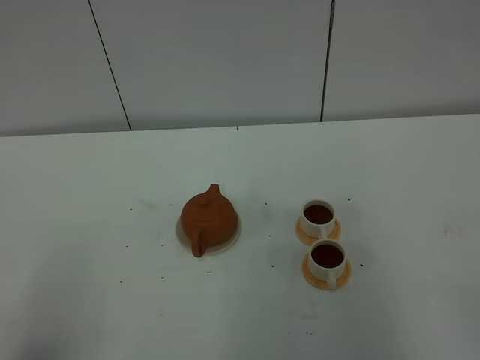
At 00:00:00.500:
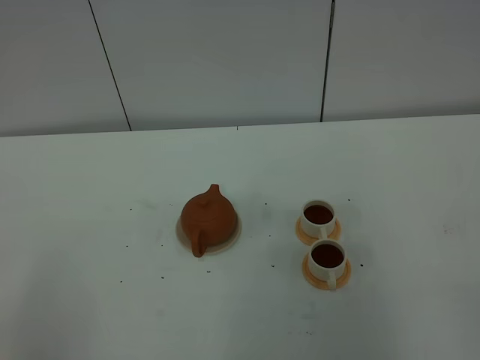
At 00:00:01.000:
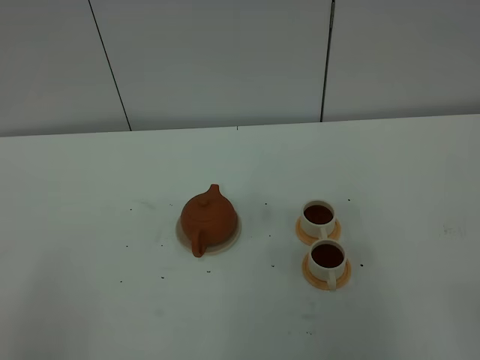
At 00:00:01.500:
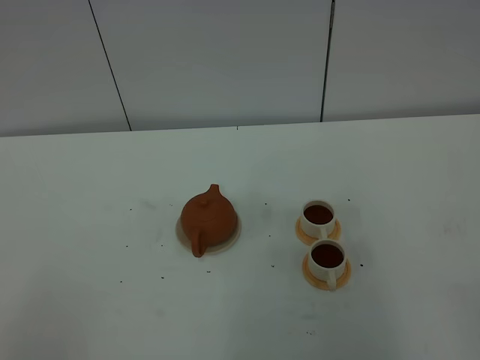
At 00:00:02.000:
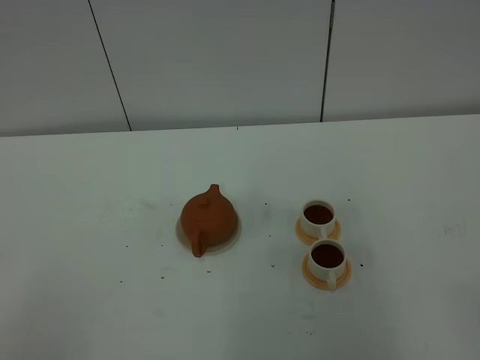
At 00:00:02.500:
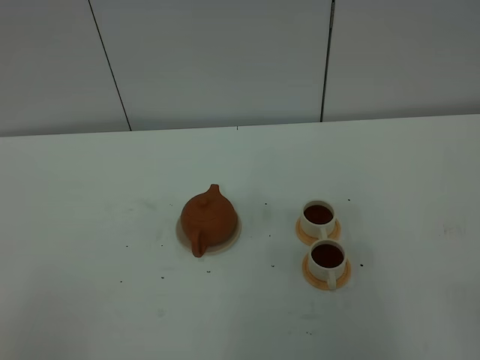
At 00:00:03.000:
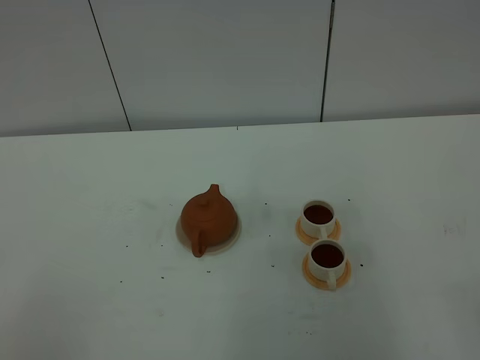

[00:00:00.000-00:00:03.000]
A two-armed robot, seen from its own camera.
Task of the whole recording: grasp the brown teapot and pour the tea into the two white teacups one by one, put the brown teapot back in its original place.
00:00:01.500 to 00:00:03.000: Neither gripper changes place.

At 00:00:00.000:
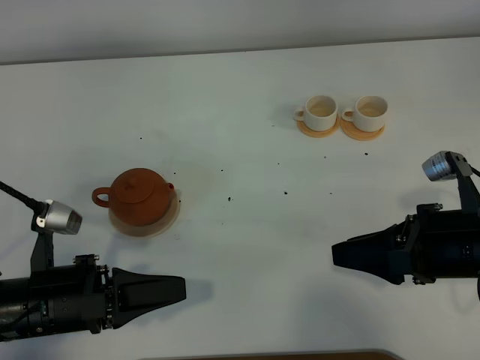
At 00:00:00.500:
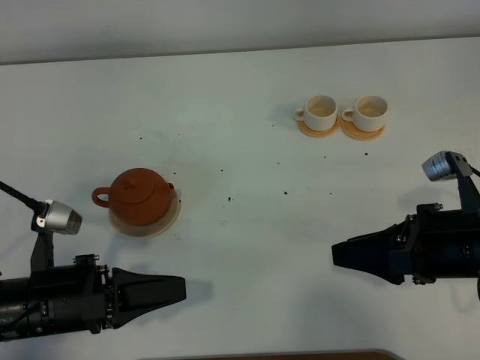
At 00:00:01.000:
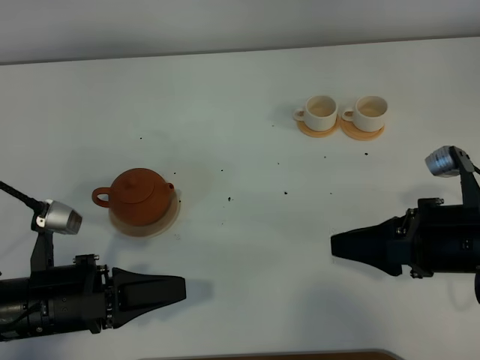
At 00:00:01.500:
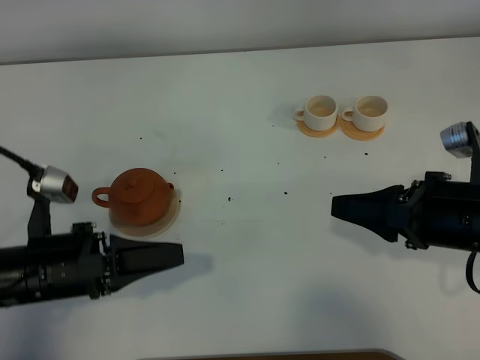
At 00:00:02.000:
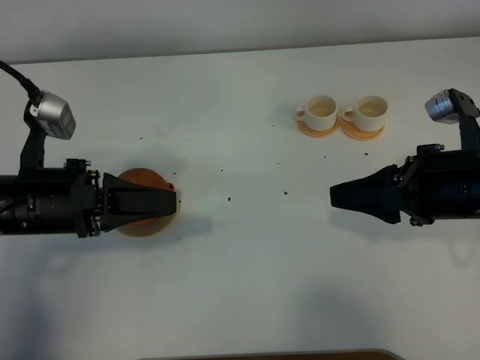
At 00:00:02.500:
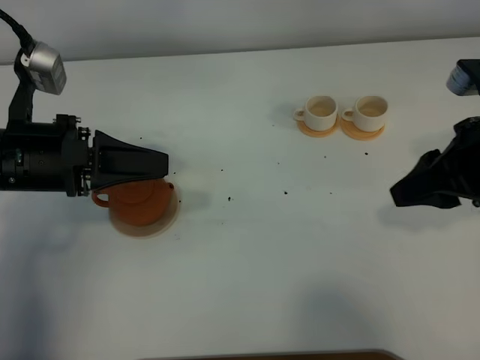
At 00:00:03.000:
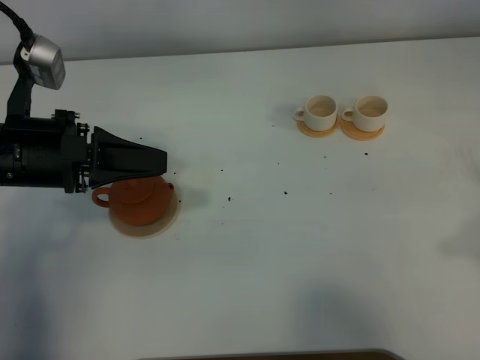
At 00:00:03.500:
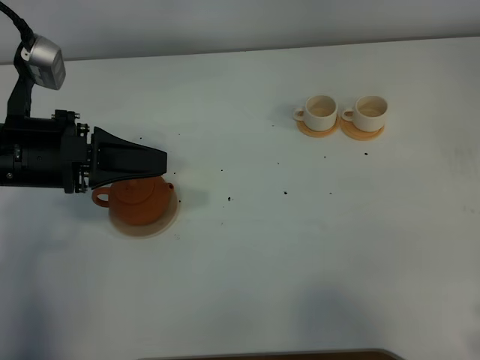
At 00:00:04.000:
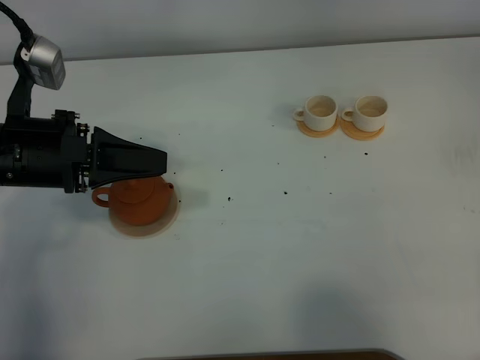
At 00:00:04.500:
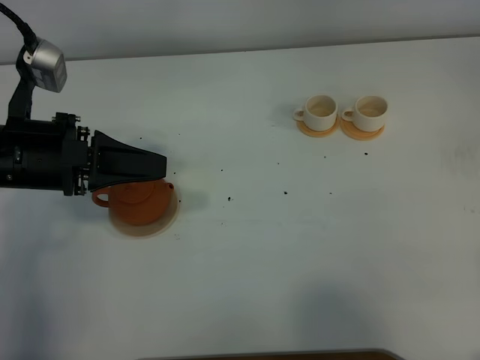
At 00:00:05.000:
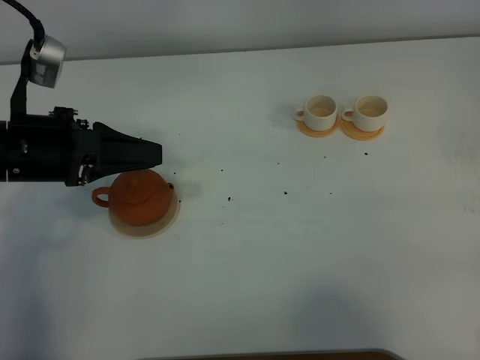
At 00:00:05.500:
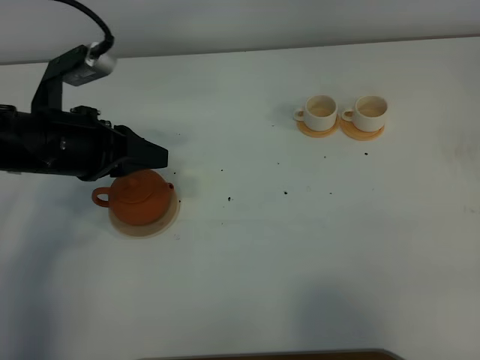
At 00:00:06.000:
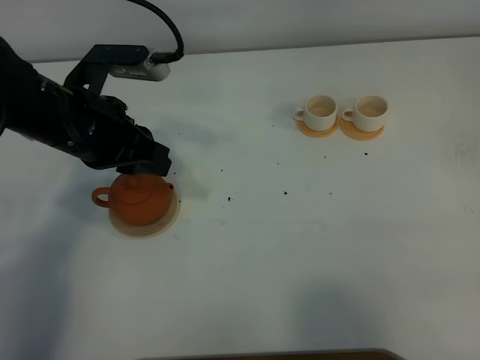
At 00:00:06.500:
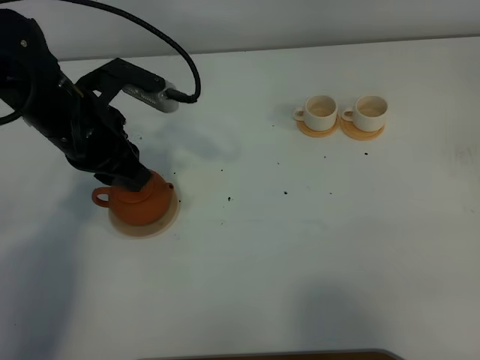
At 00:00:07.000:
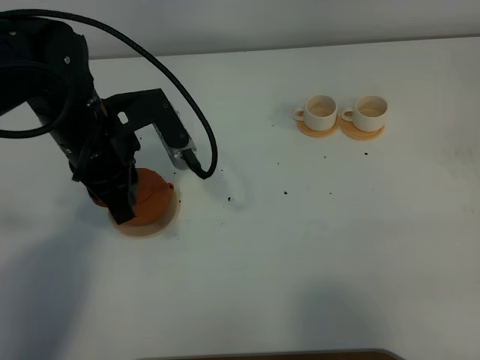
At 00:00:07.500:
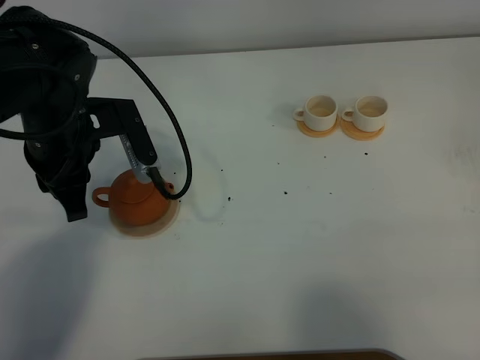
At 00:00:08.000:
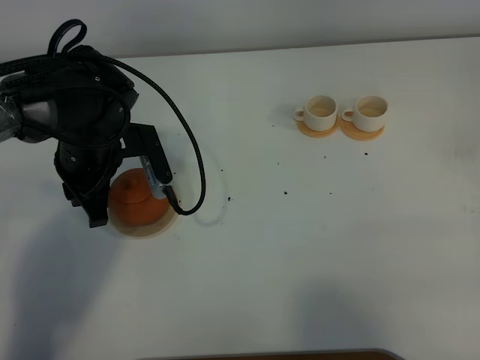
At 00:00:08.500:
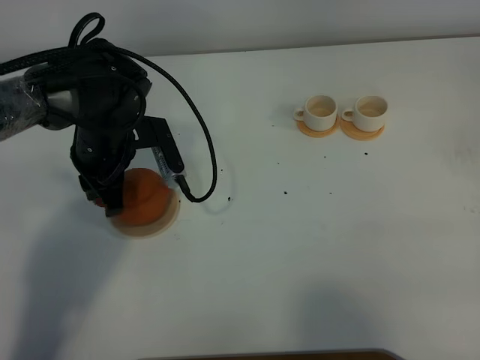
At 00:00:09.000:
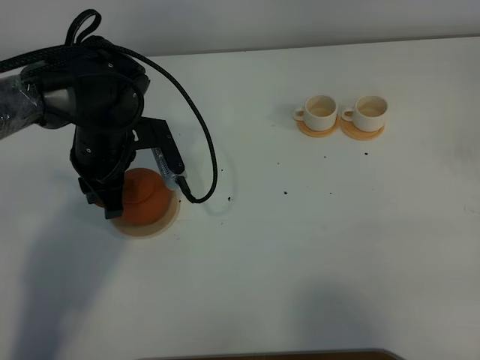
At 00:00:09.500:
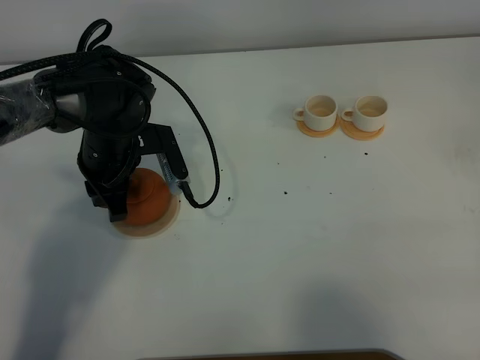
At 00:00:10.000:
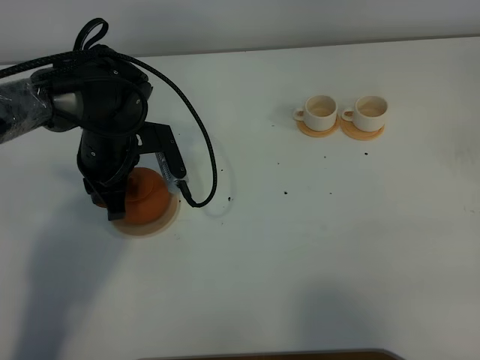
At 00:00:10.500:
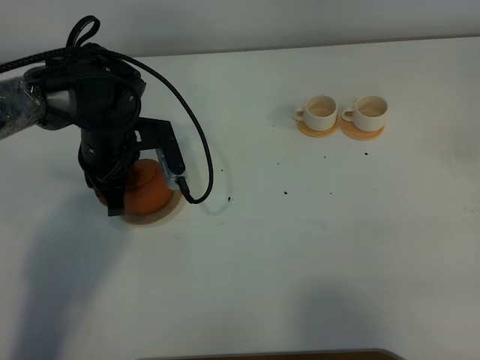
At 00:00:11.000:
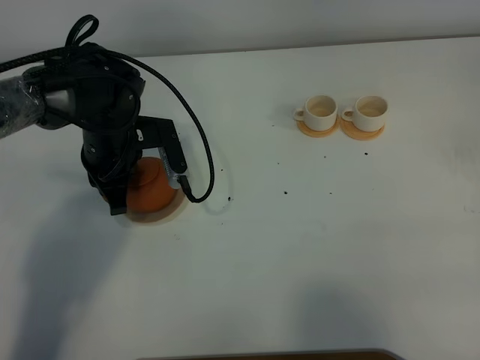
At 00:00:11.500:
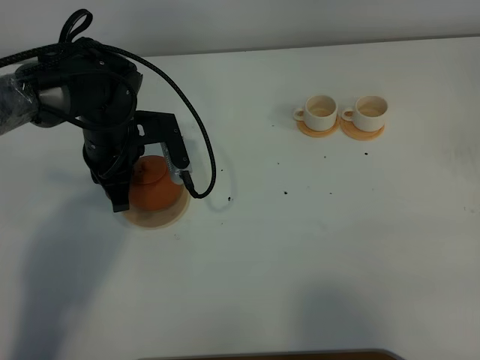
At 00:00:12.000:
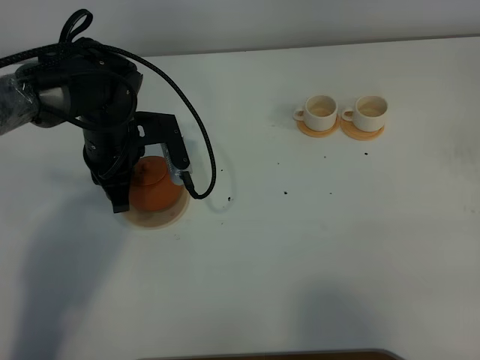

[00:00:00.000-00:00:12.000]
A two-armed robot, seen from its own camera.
Task of the whole recording: grasp the brown teapot and pour the tea into the two white teacups one by one, put the brown teapot back in its original place.
00:00:00.000 to 00:00:02.000: The right gripper shifts by approximately 5 cm; the left gripper is displaced forward and upward by roughly 10 cm.
00:00:02.000 to 00:00:04.000: The right gripper shifts about 20 cm backward and to the right.
00:00:04.000 to 00:00:06.000: The left gripper moves roughly 5 cm.
00:00:06.000 to 00:00:08.000: The left gripper moves downward, approximately 10 cm.
00:00:08.000 to 00:00:10.000: The right gripper closes up.
00:00:10.000 to 00:00:12.000: There are only small adjustments of the grippers.

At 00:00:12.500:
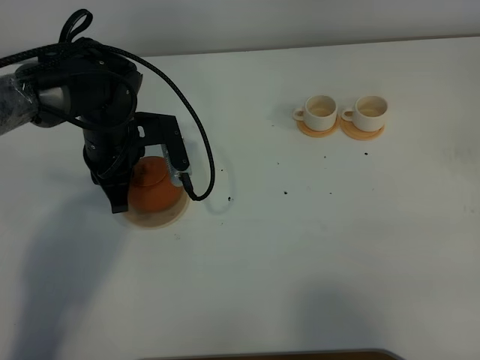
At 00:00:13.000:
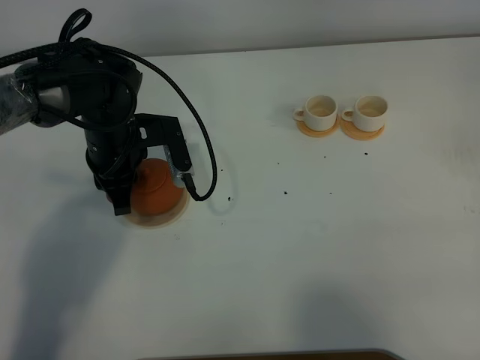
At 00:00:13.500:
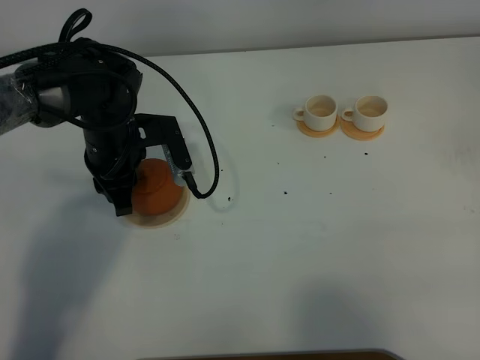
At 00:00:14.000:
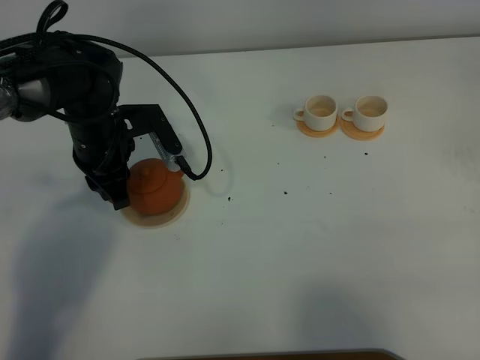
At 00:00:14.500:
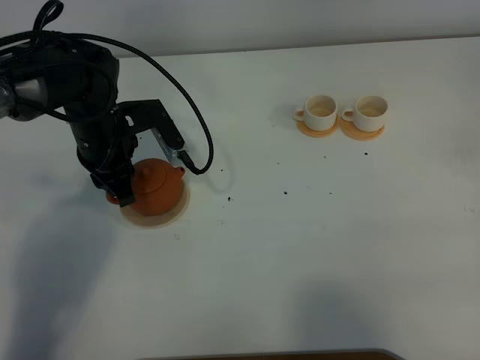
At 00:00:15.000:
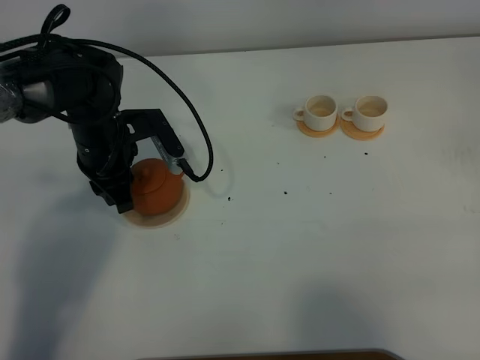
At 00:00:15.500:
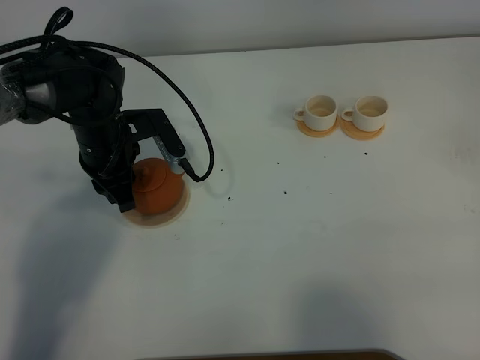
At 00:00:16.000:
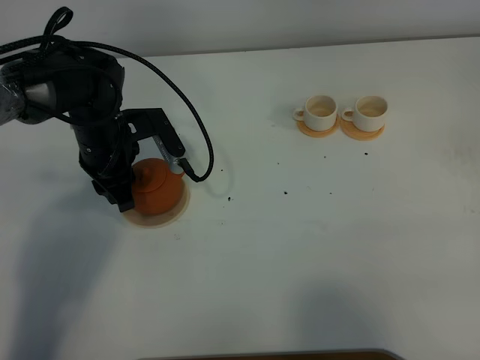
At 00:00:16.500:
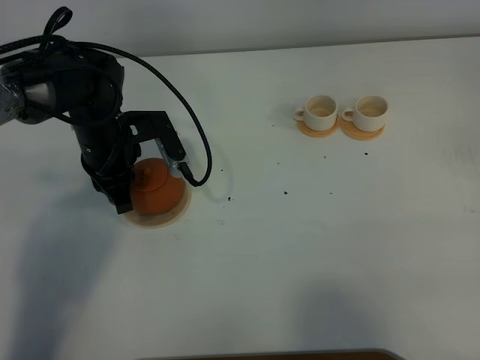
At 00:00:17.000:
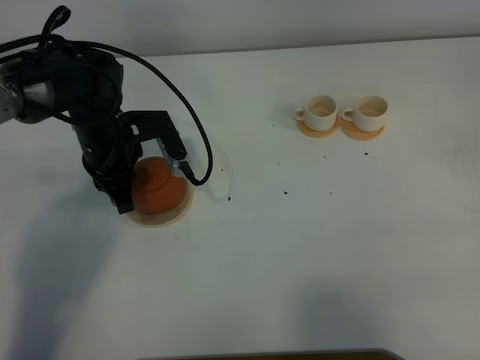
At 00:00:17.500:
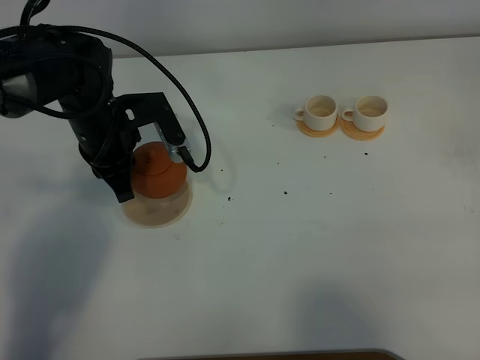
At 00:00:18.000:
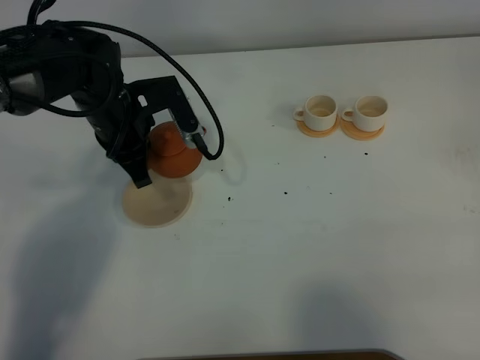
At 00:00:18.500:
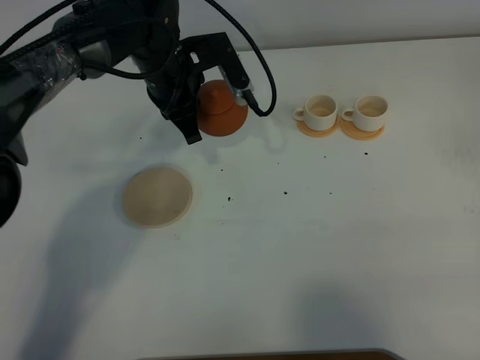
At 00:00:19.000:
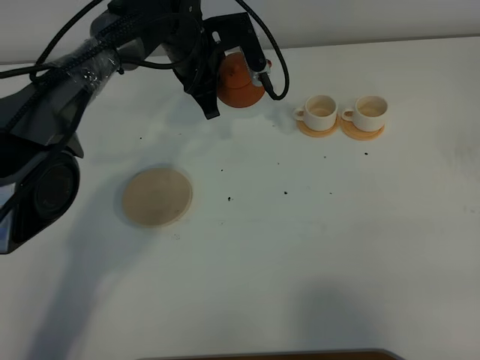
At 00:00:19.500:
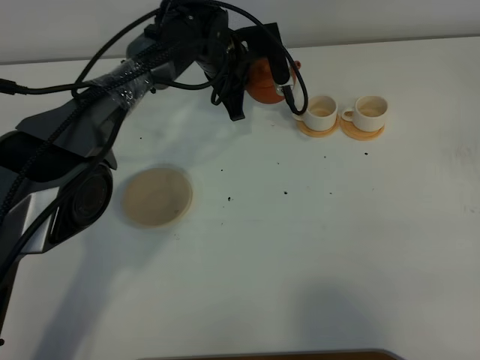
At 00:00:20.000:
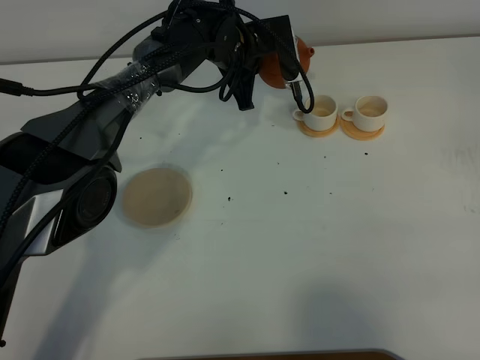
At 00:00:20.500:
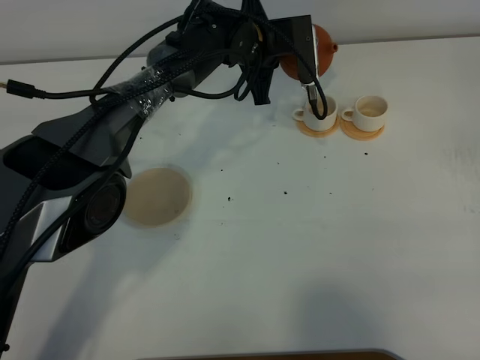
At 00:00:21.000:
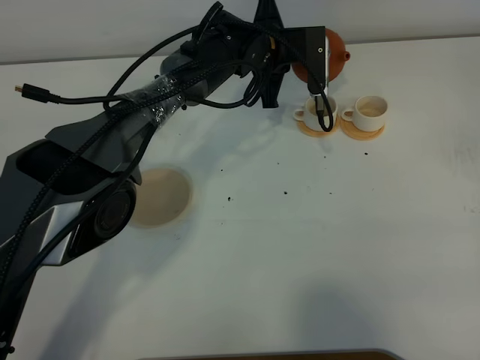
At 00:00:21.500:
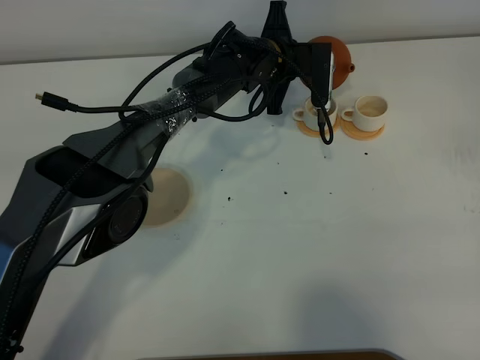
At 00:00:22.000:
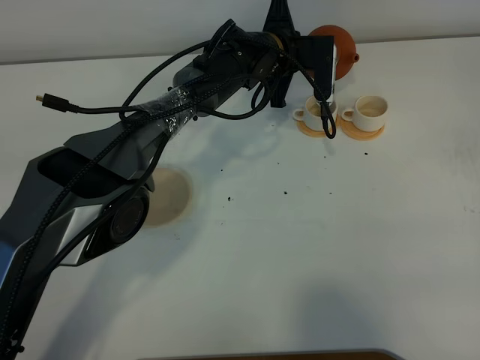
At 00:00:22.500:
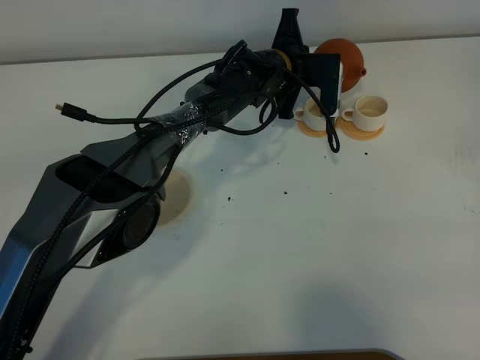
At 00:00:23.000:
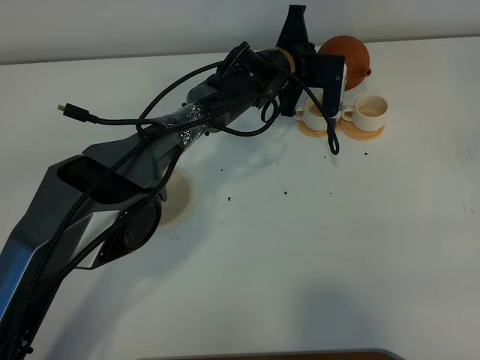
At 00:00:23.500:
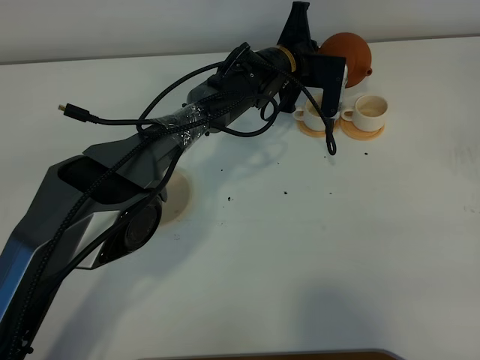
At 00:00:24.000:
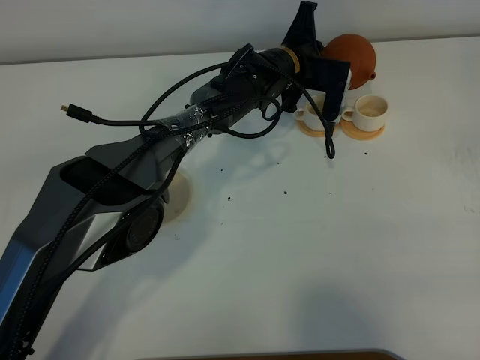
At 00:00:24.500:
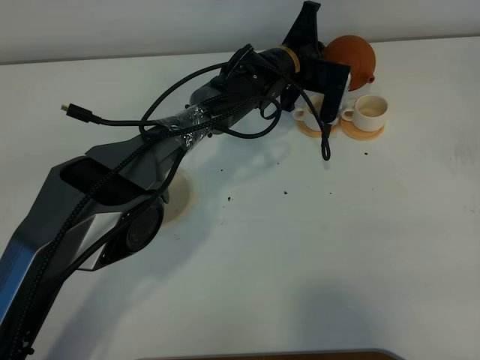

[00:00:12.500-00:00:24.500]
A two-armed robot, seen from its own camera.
Task of the whole recording: grasp the brown teapot and pour the tea into the two white teacups one by one, put the brown teapot back in its original place.
Step, 00:00:12.500 to 00:00:18.000: Pick up the teapot with the left gripper.
00:00:12.500 to 00:00:14.500: The left gripper opens.
00:00:14.500 to 00:00:16.500: The left gripper closes up.
00:00:16.500 to 00:00:18.500: The left gripper is displaced to the right, forward and upward by roughly 10 cm.
00:00:18.500 to 00:00:20.500: The left gripper moves to the right and forward, some 10 cm.
00:00:20.500 to 00:00:22.500: The left gripper shifts approximately 5 cm downward.
00:00:22.500 to 00:00:24.500: The grippers make only small movements.
